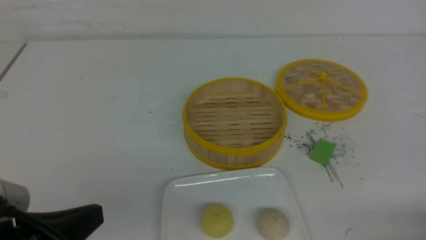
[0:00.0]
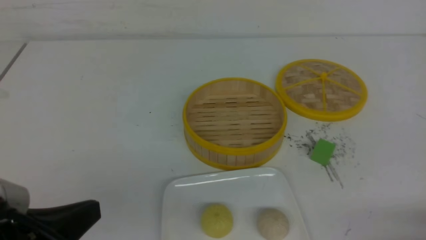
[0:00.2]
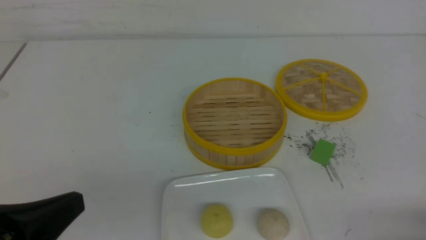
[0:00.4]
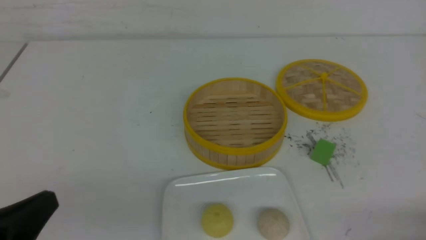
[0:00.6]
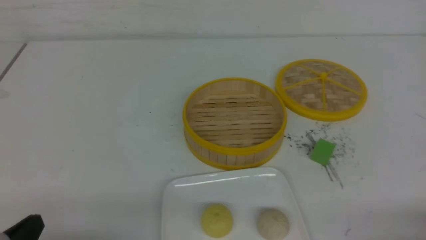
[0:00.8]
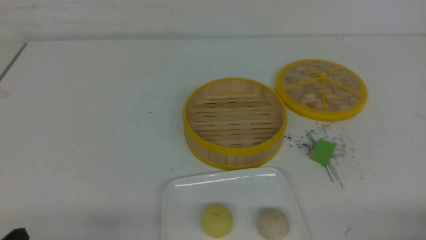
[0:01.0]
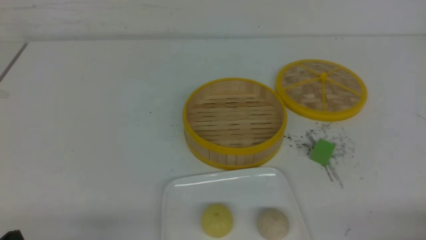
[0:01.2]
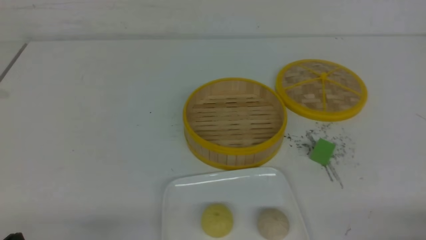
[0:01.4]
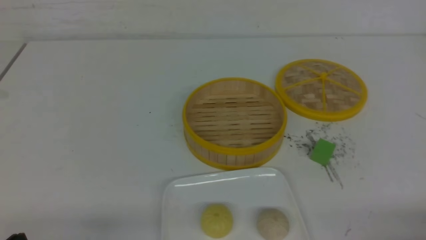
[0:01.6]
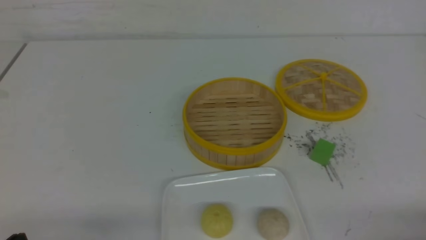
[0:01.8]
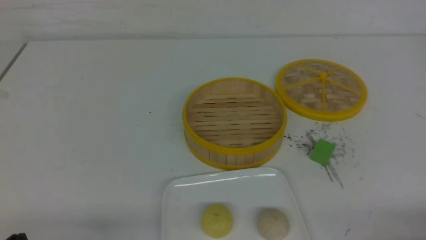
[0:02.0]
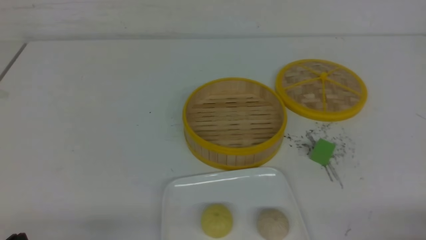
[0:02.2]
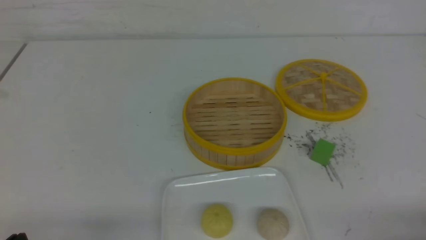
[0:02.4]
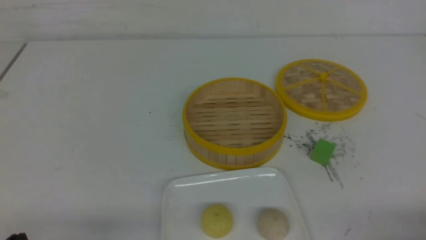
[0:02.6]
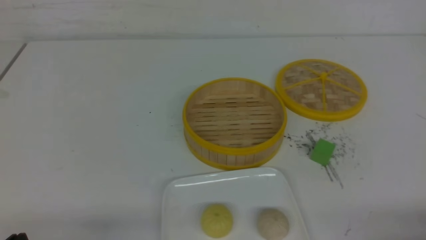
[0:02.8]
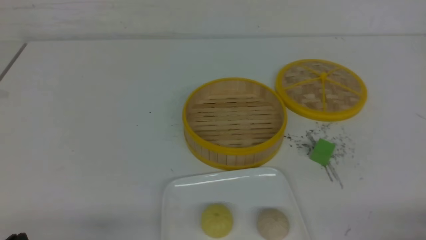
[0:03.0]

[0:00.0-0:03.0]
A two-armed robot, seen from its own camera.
0:00.0 to 0:01.6: The left gripper heads downward and to the left, covering roughly 15 cm.
0:01.6 to 0:03.0: Both grippers stay put.
